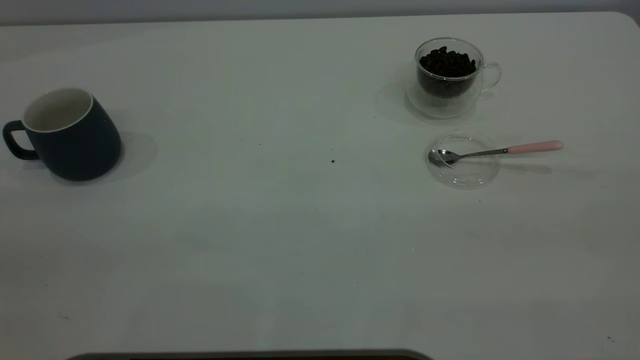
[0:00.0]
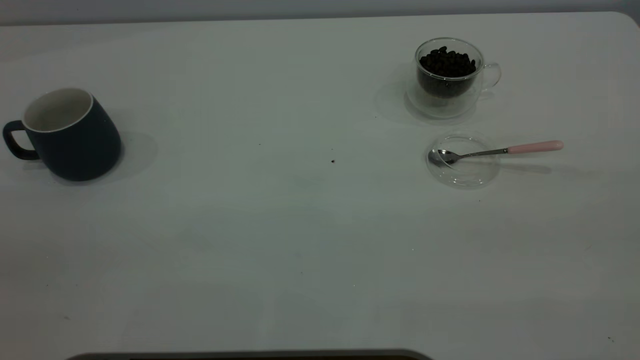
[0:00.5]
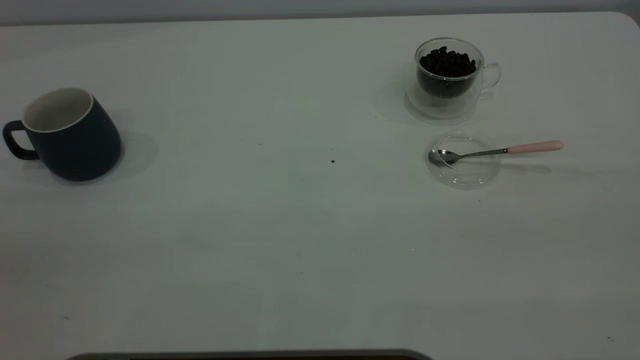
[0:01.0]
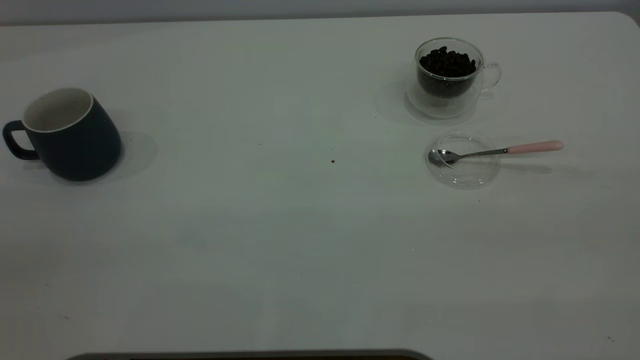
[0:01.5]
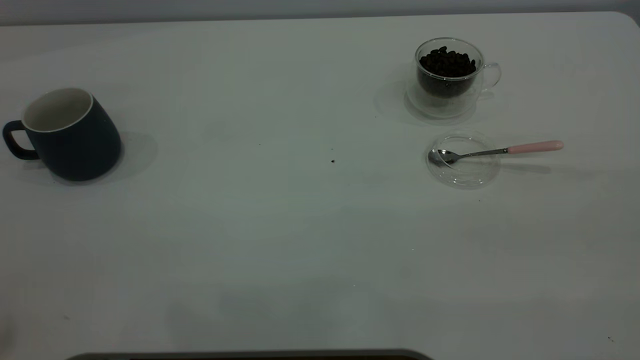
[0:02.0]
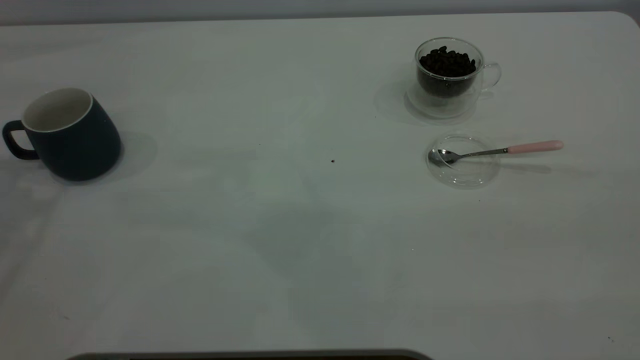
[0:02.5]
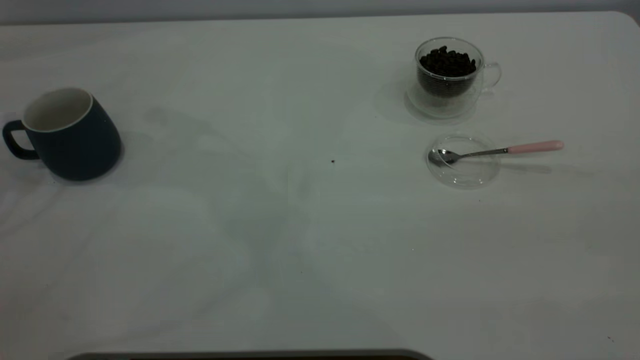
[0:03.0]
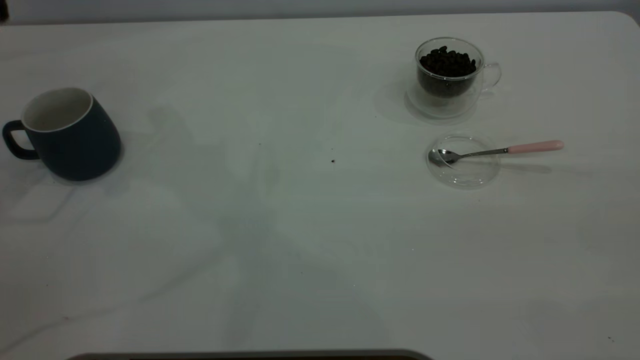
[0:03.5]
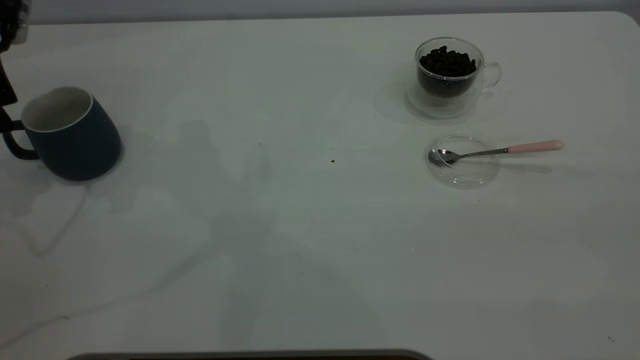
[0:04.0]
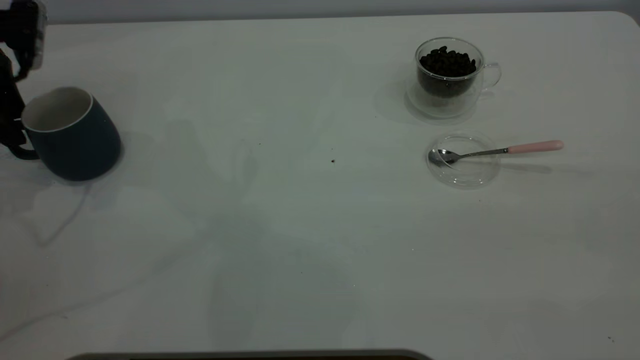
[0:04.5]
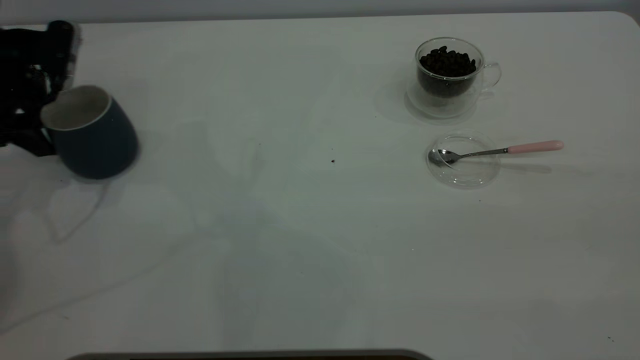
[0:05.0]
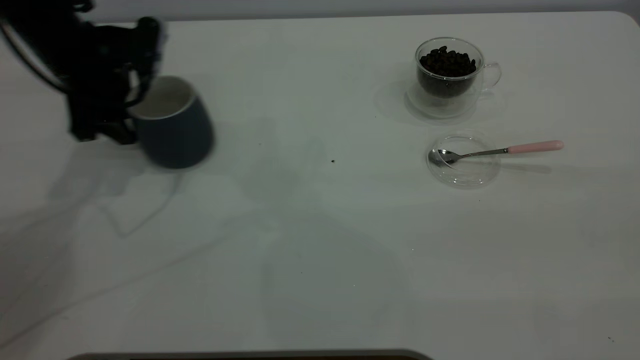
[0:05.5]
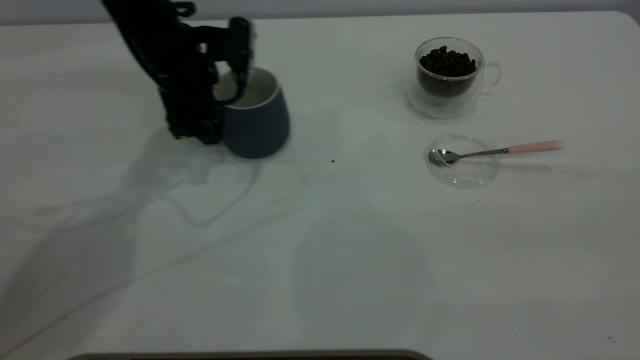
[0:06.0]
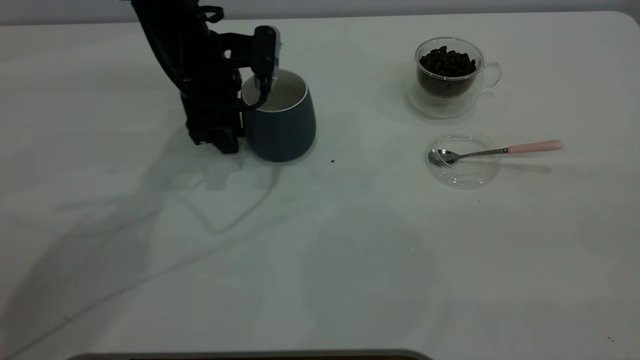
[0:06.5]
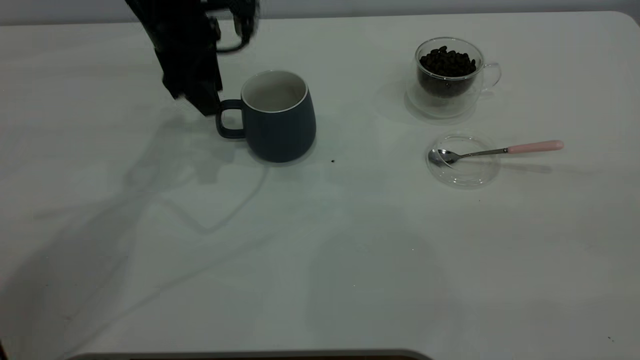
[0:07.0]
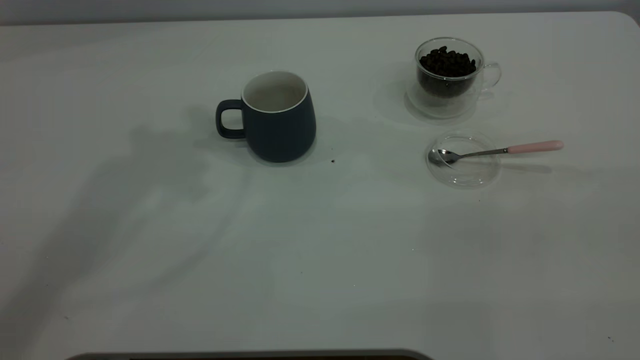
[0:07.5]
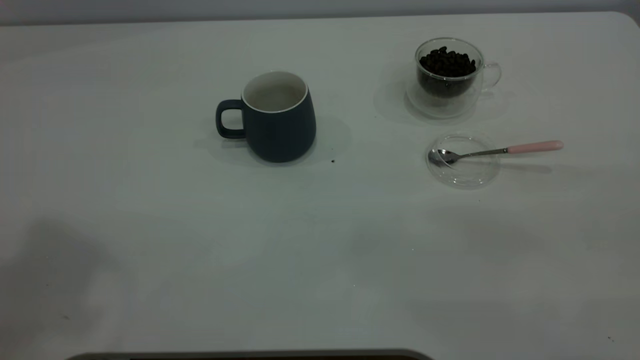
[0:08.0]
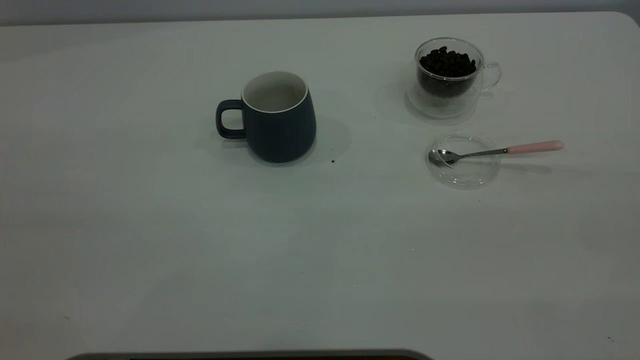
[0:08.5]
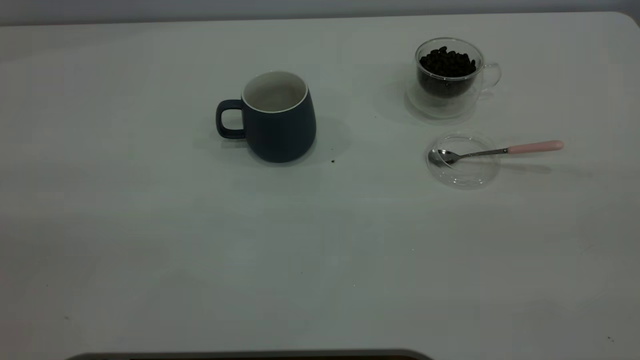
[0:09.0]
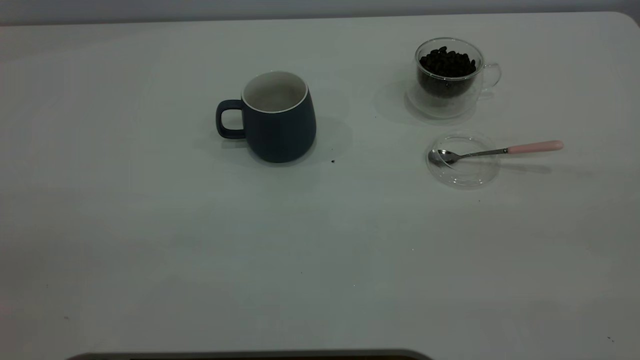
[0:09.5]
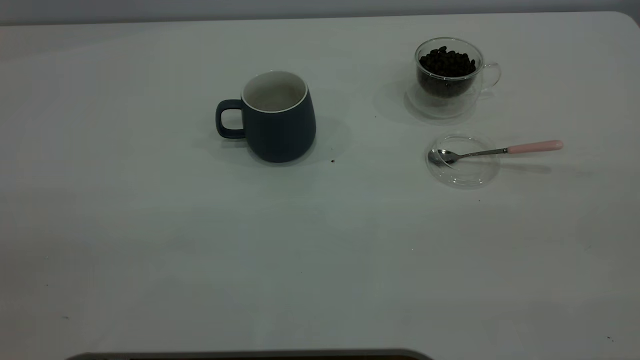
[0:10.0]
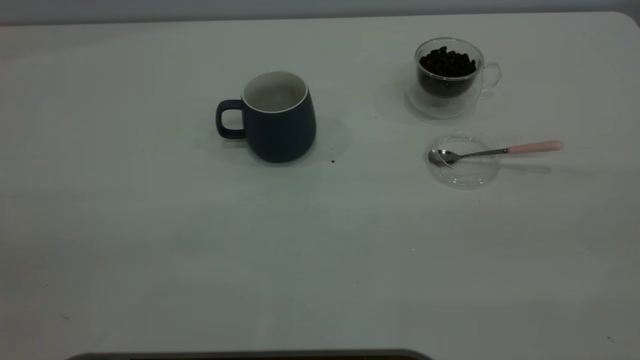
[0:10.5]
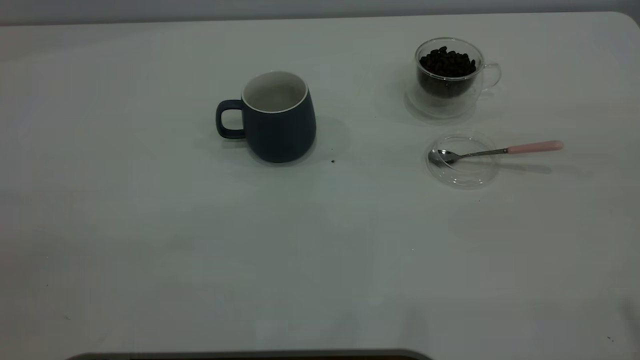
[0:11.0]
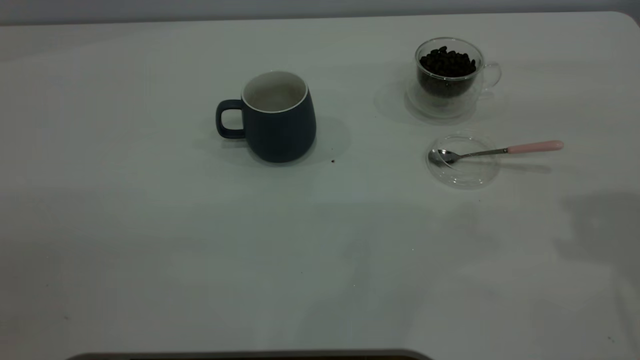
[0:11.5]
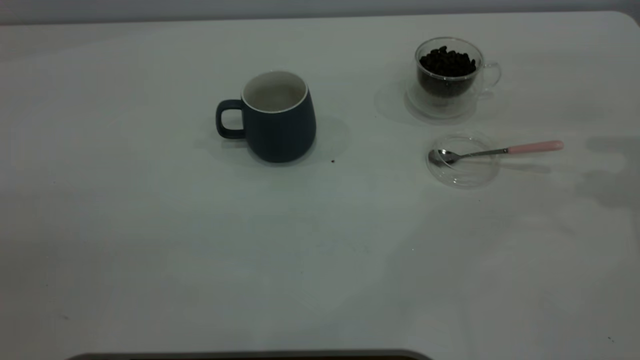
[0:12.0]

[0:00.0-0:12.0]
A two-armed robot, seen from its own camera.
Task of the whole recording: the left gripper place the grey cup in the center of the table, the right gripper take the pink spoon from the cup lid and scoop out the coffee beans from the coffee cup and put them into the grey cup, the right gripper put the spoon back into the cup lid.
Step, 0:00.0 to 0:06.5: Move the cup to the center of view.
0:02.0 to 0:04.0: The left gripper travels forward and downward by some 35 cm.
0:04.0 to 0:06.0: The left gripper heads to the right, covering about 20 cm.
0:06.0 to 0:08.0: The left gripper travels upward and backward by some 50 cm.

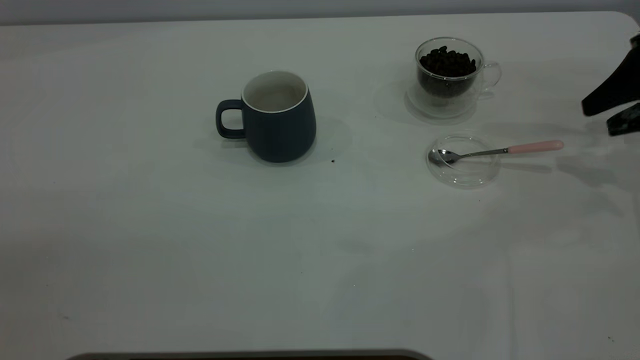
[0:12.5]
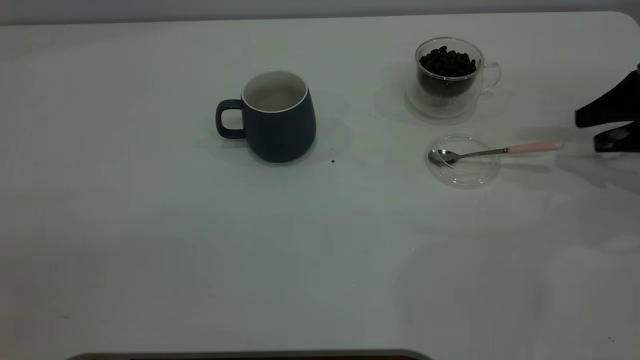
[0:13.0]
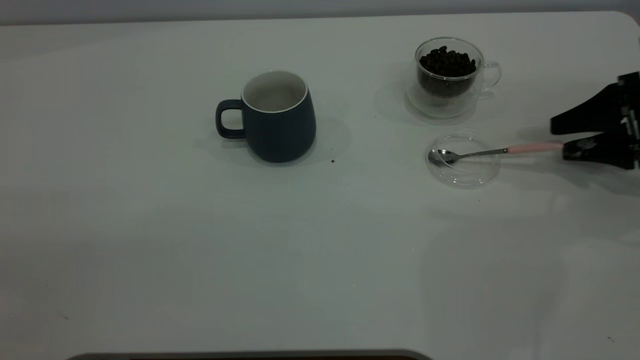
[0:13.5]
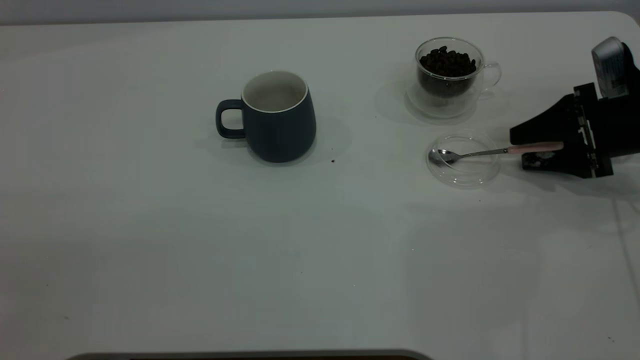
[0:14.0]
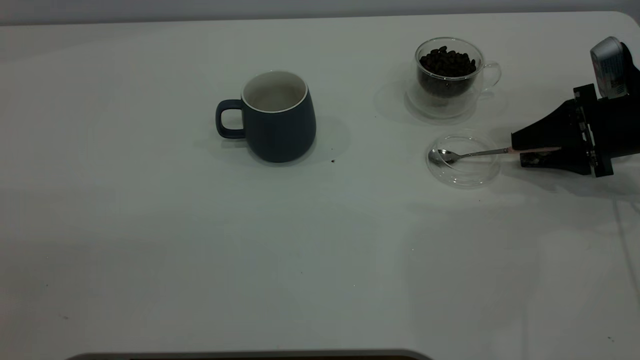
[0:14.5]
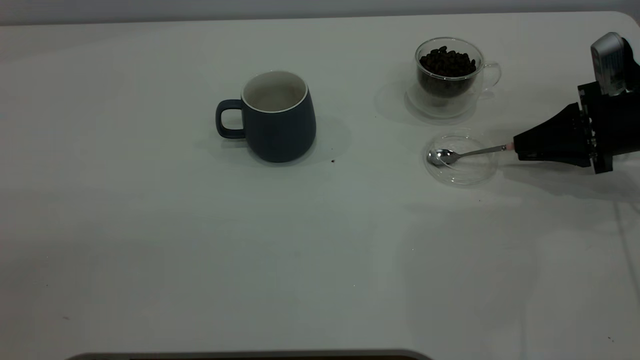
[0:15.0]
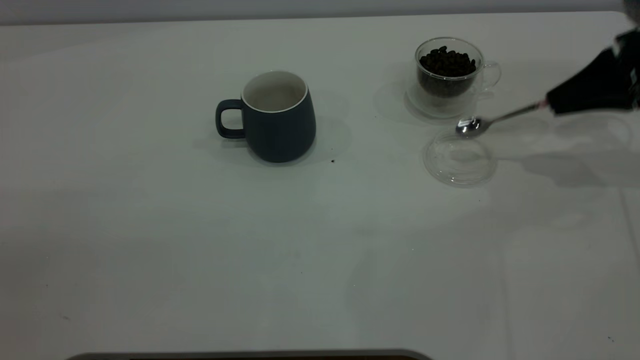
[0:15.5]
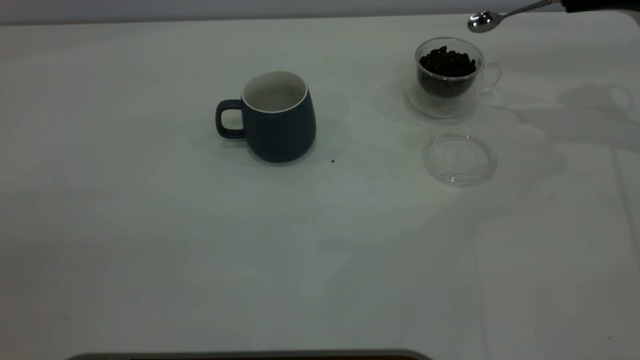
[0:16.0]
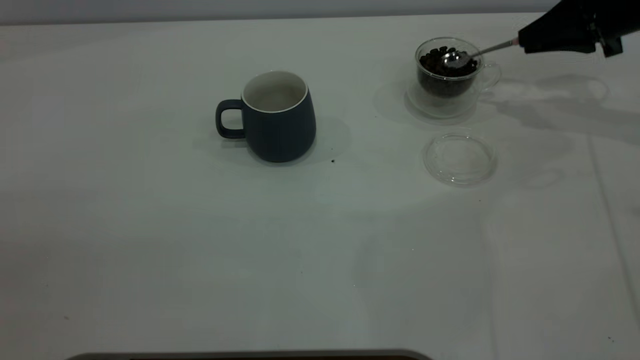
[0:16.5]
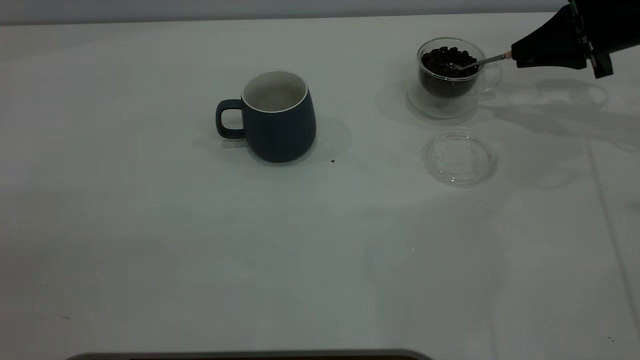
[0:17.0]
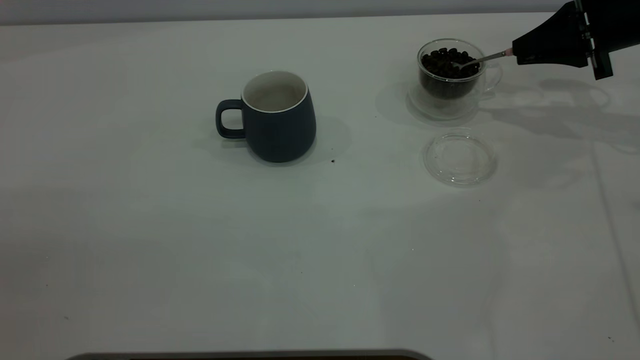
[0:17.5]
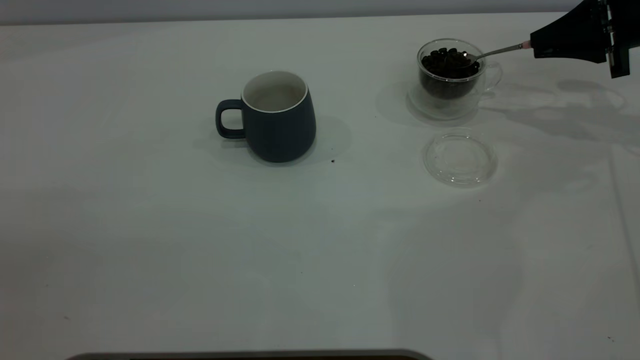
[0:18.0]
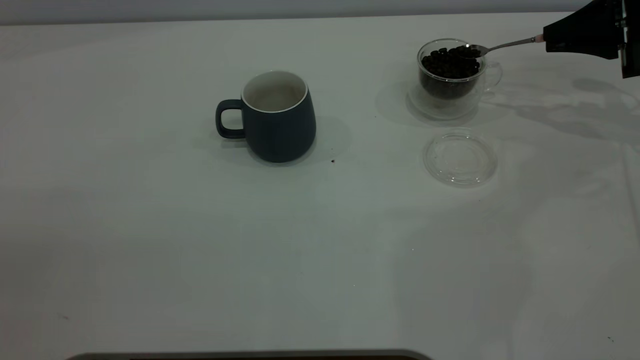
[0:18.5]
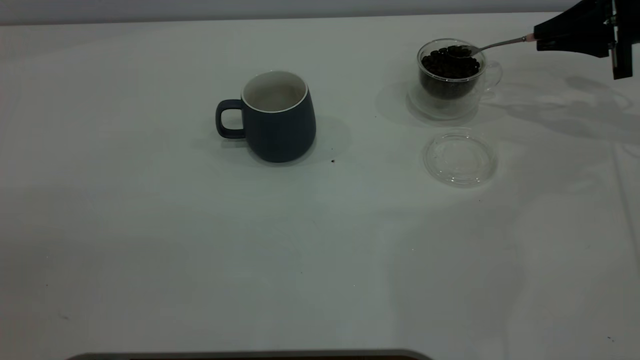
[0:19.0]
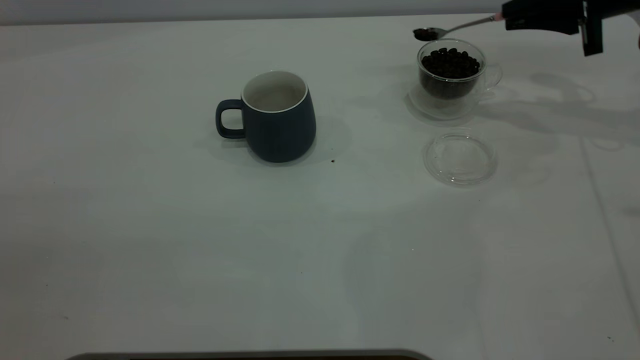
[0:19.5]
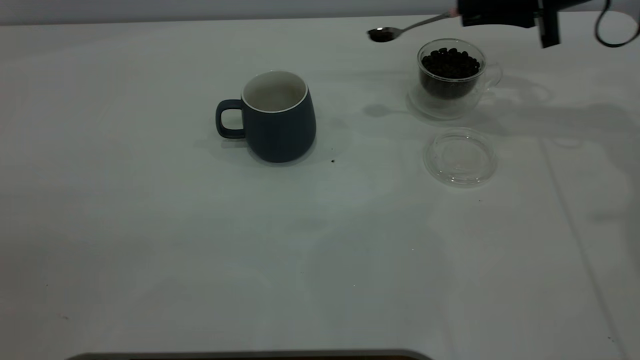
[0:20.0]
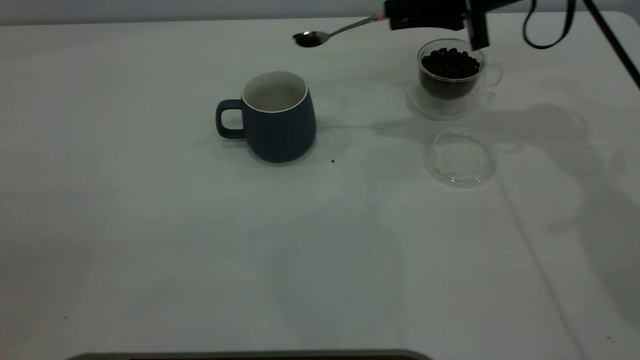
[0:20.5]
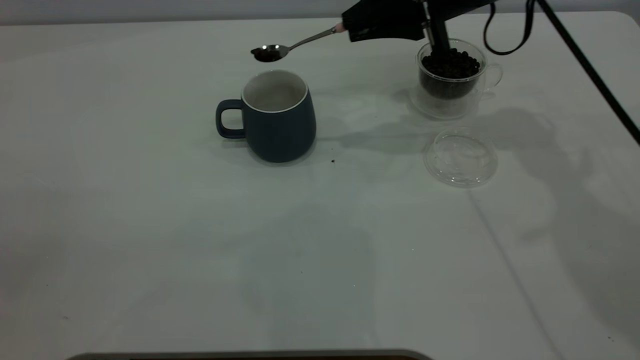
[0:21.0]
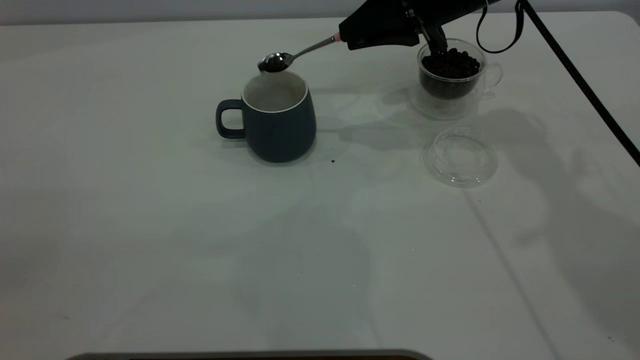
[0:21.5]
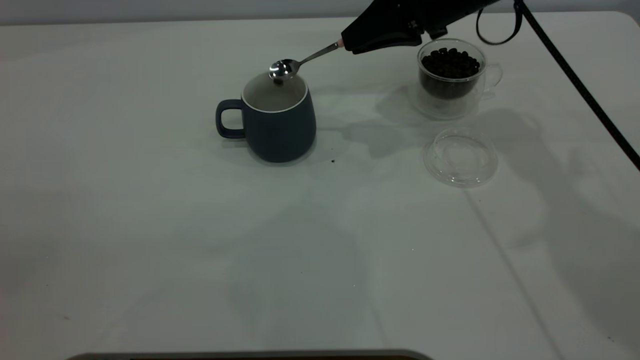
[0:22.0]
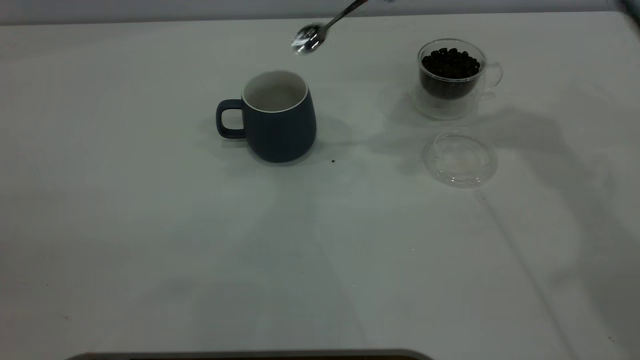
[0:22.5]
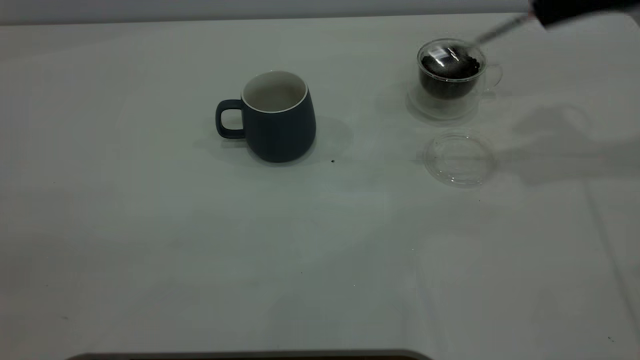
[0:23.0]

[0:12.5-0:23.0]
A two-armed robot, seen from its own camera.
Task of the whole recording: the left gripper place the grey cup in the center of the table, the right gripper take the pink spoon from the cup lid and scoop out the coffee beans from the coffee cup and put them into the grey cup, the right gripper put the spoon back into the cup lid.
Step, 0:12.5 to 0:15.0: Pick up the spoon.
Step, 0:15.5 to 0:22.0: Scoop a spoonful of beans into the cup.
0:12.5 to 0:14.5: The right gripper heads downward, covering roughly 10 cm.
0:14.5 to 0:16.5: The right gripper travels upward and forward by approximately 15 cm, and closes up.
0:19.0 to 0:21.0: The right gripper is displaced to the left by about 20 cm.
0:21.0 to 0:23.0: The right gripper is displaced to the right by some 15 cm.
